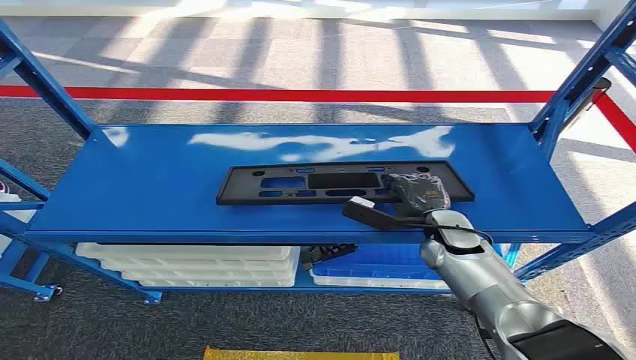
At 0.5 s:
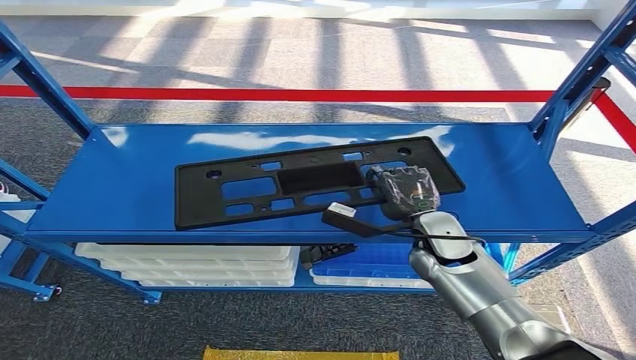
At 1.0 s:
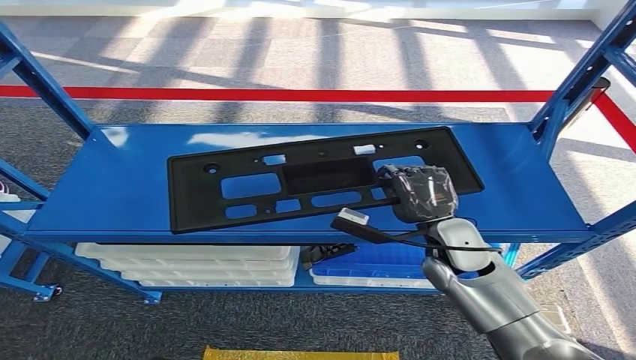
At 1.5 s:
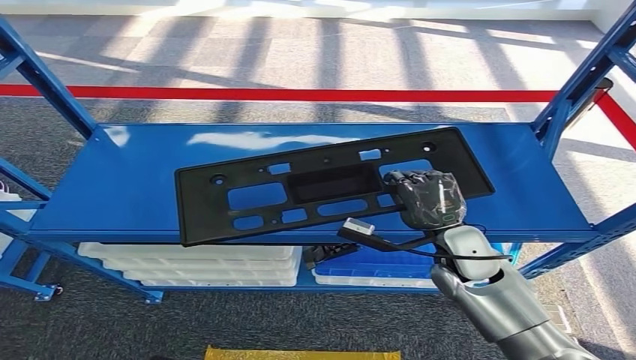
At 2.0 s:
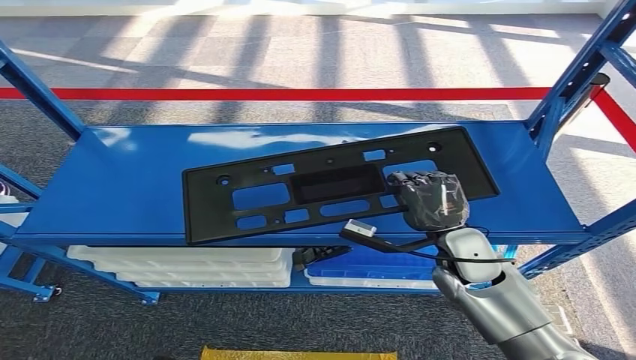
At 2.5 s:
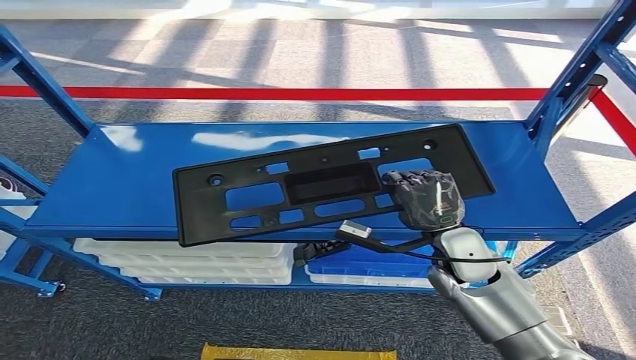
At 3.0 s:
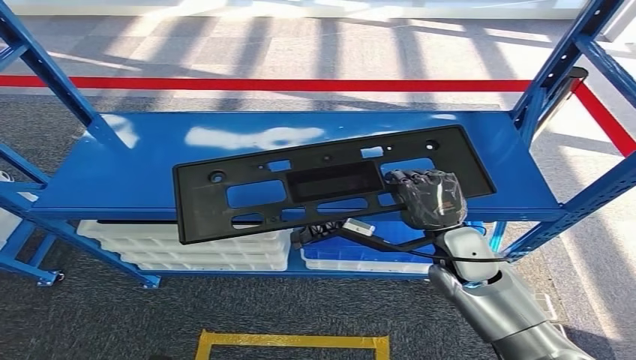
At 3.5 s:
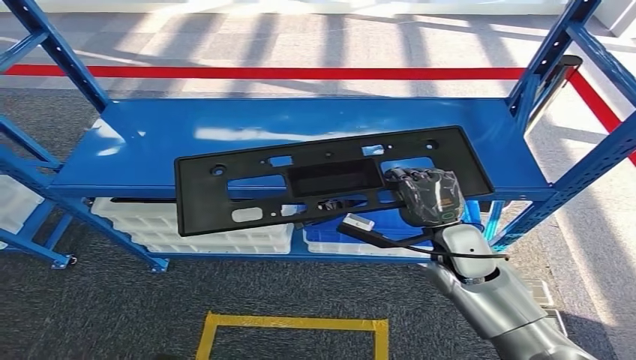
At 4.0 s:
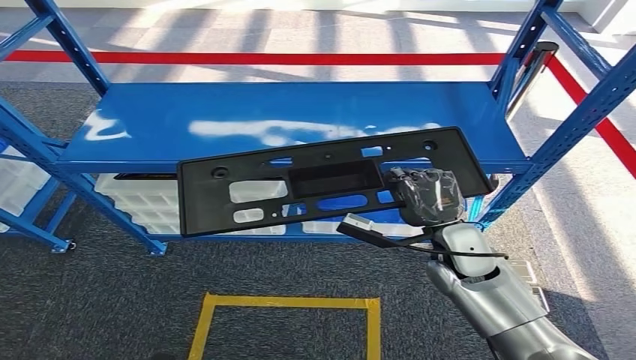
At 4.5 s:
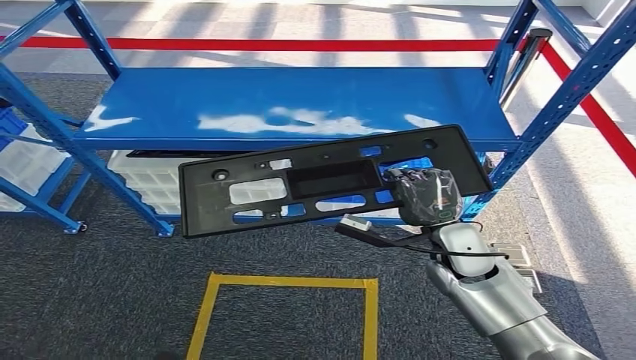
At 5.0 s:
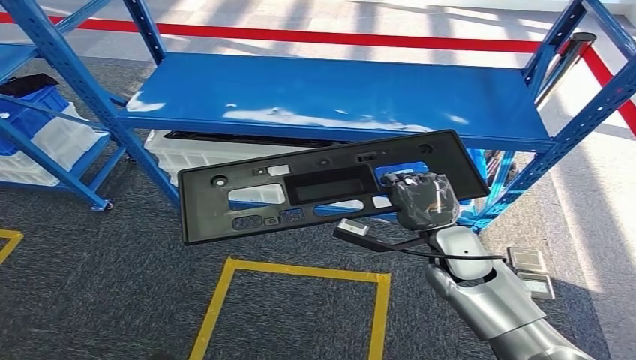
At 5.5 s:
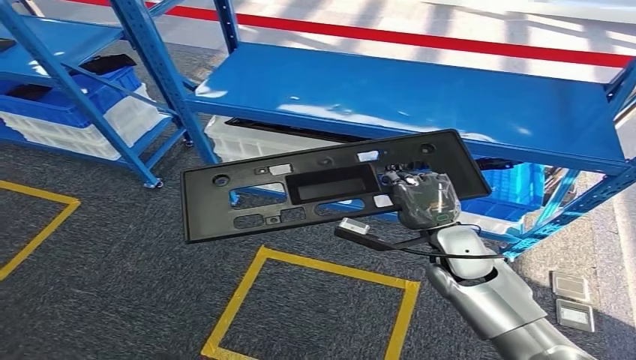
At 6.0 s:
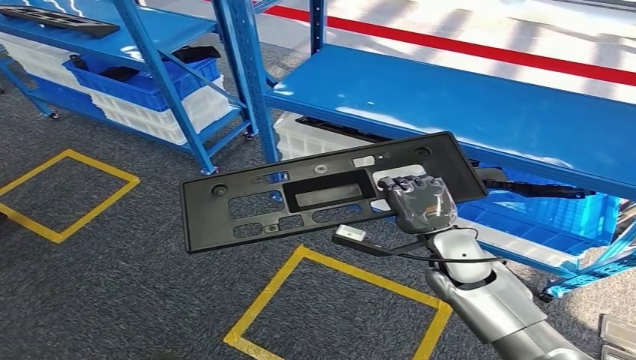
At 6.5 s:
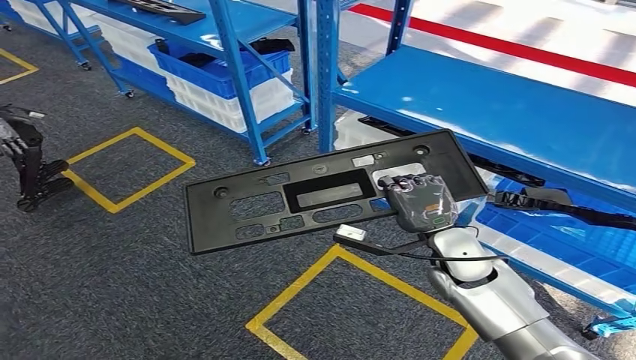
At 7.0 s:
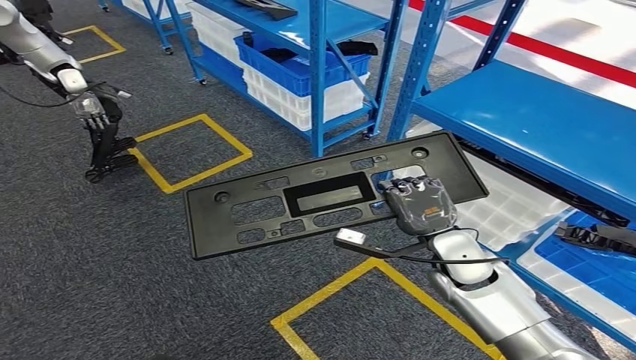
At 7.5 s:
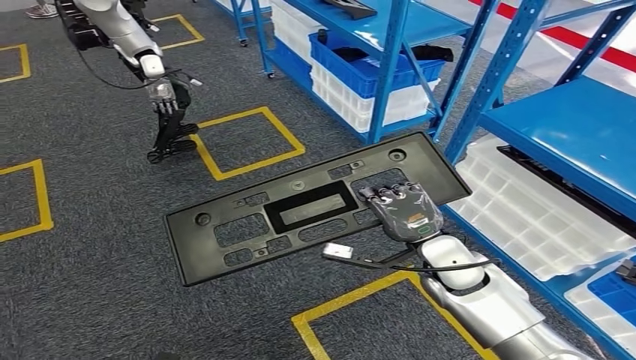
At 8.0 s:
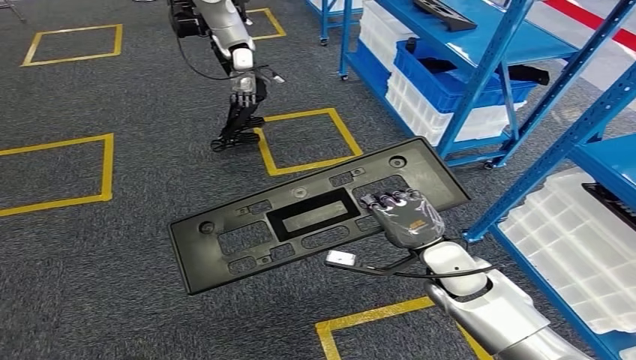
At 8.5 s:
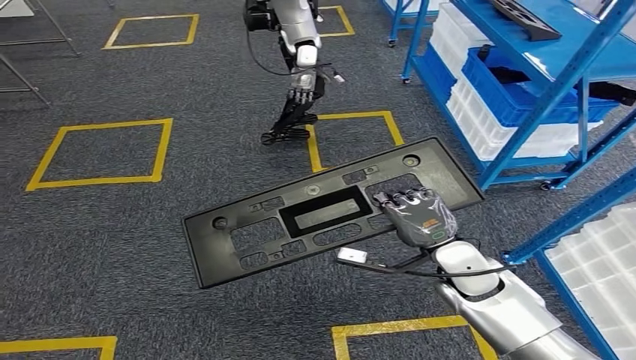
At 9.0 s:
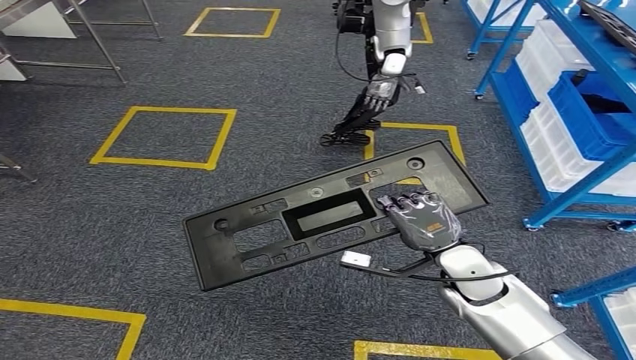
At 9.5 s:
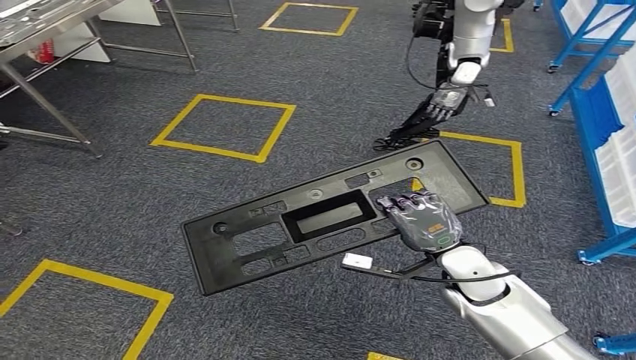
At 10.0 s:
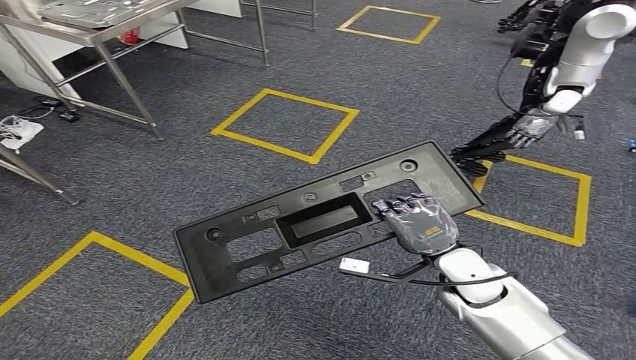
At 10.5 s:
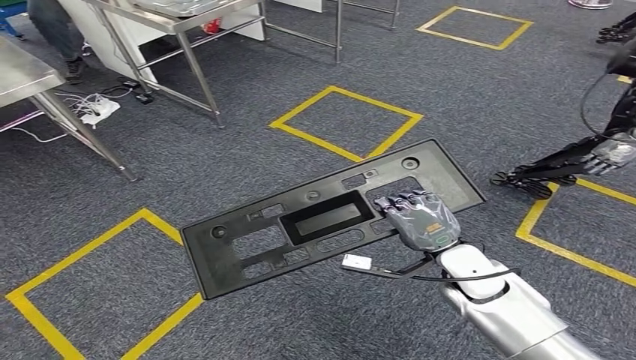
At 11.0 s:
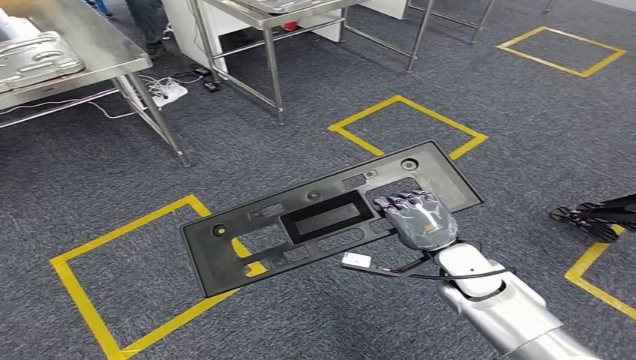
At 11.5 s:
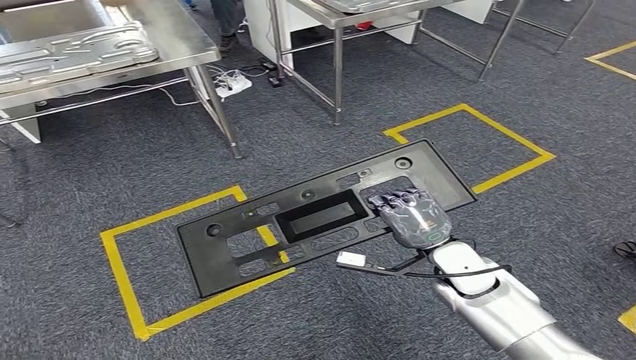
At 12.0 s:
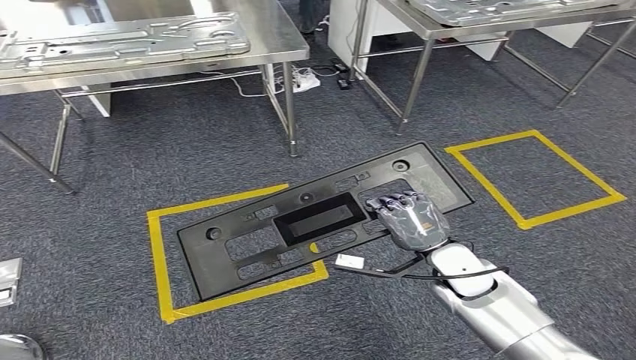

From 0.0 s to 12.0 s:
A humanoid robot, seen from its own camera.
Step, from 0.0 s to 3.0 s: Pick up the small component from the shelf.

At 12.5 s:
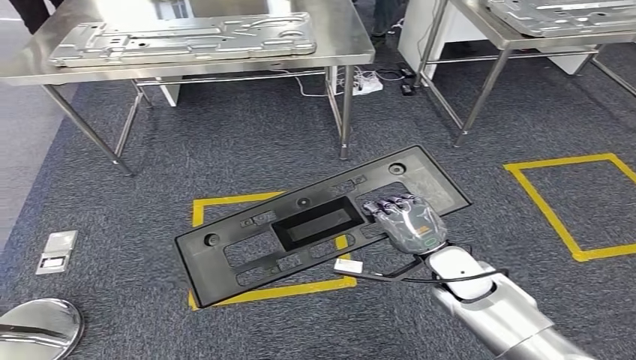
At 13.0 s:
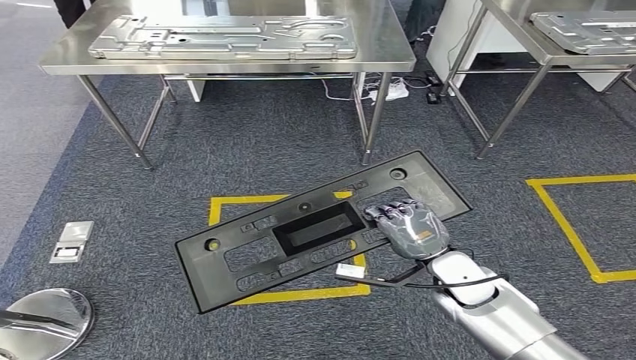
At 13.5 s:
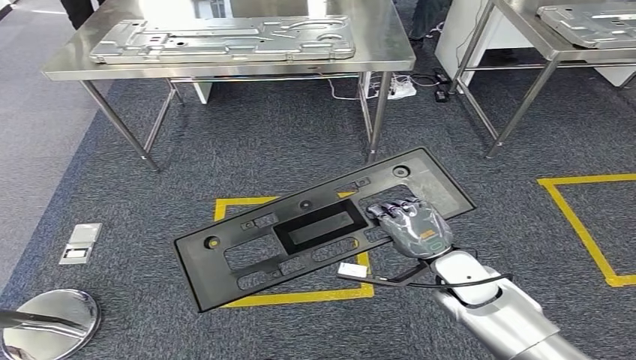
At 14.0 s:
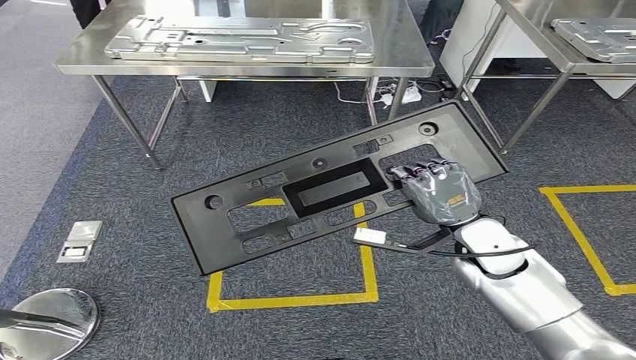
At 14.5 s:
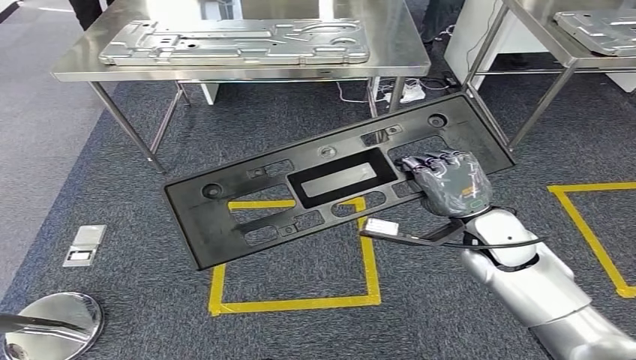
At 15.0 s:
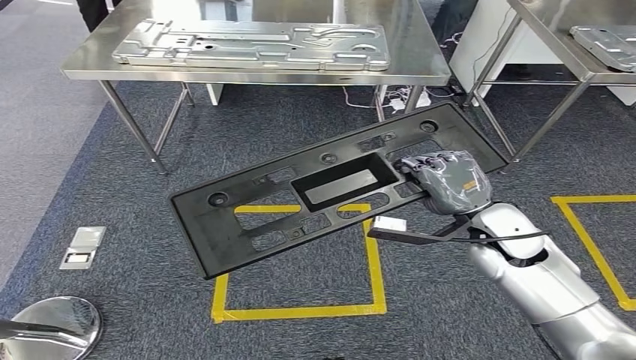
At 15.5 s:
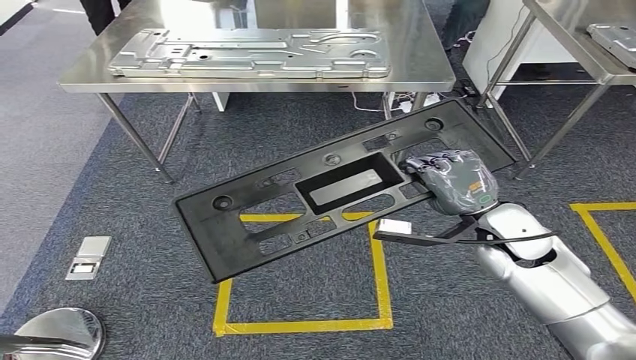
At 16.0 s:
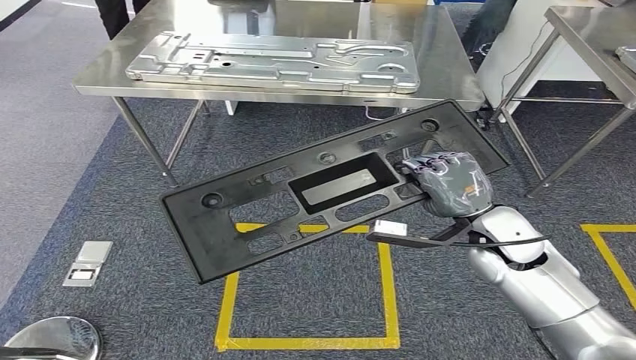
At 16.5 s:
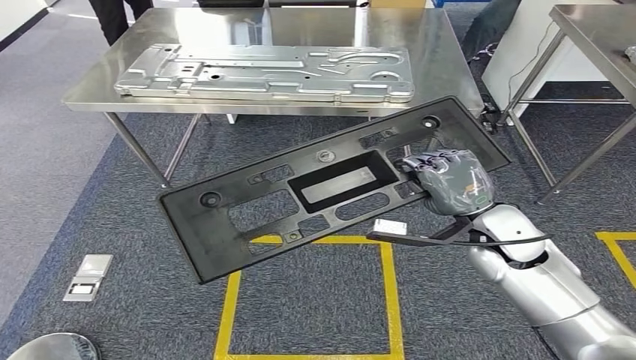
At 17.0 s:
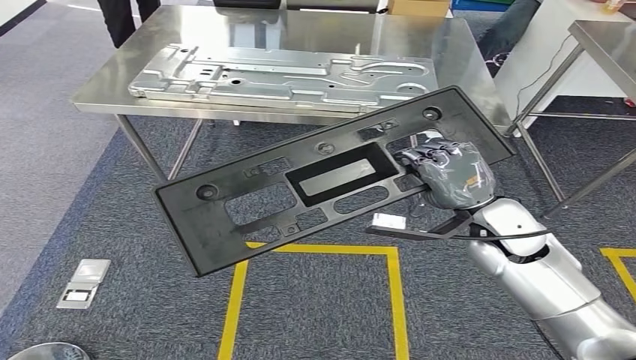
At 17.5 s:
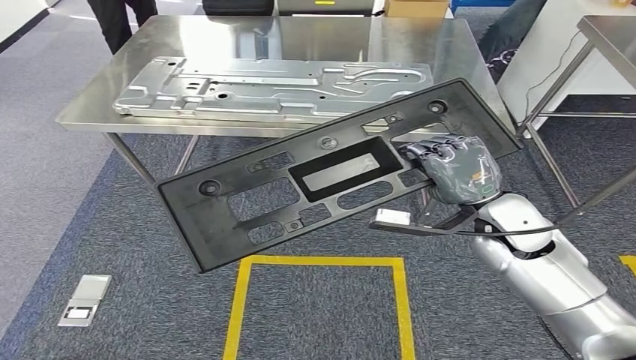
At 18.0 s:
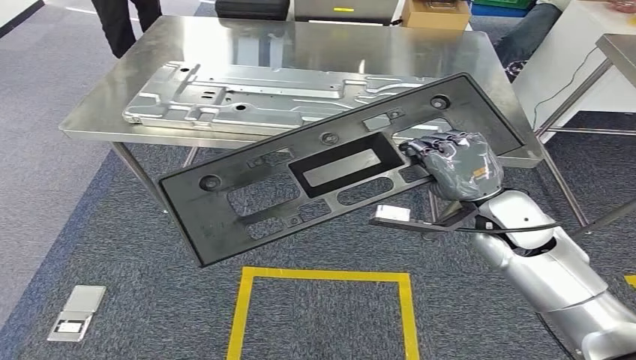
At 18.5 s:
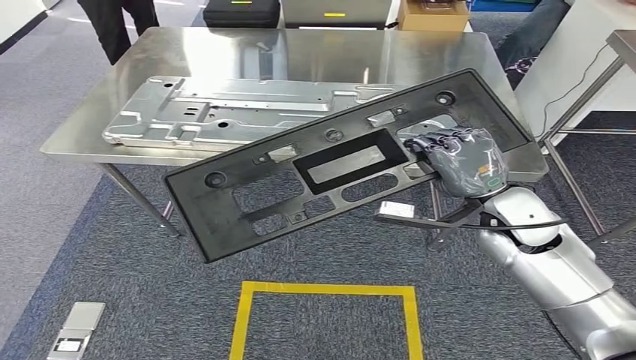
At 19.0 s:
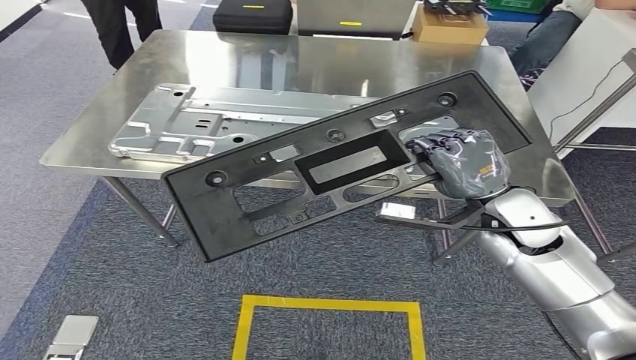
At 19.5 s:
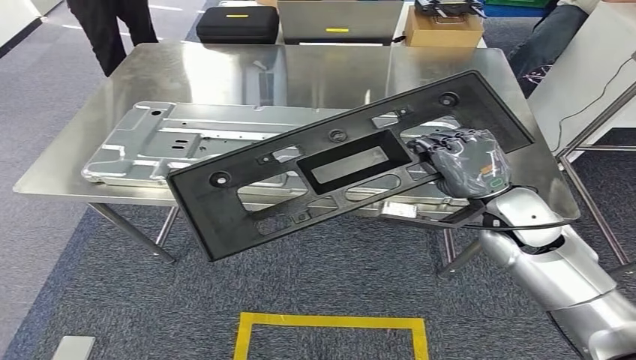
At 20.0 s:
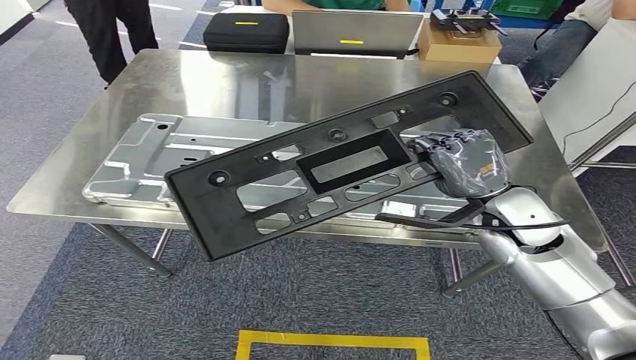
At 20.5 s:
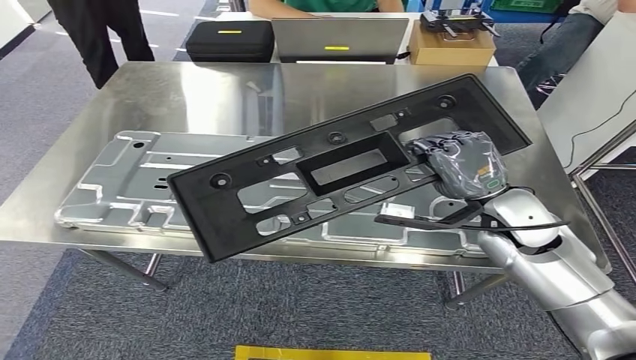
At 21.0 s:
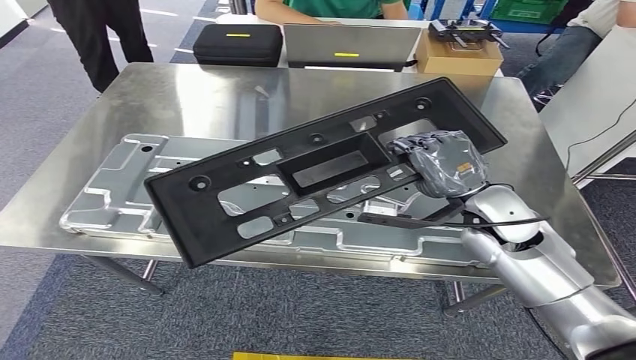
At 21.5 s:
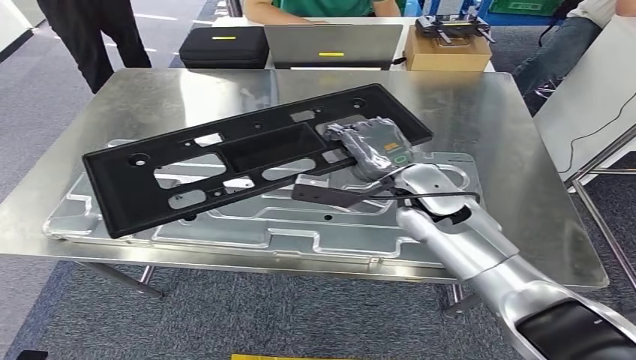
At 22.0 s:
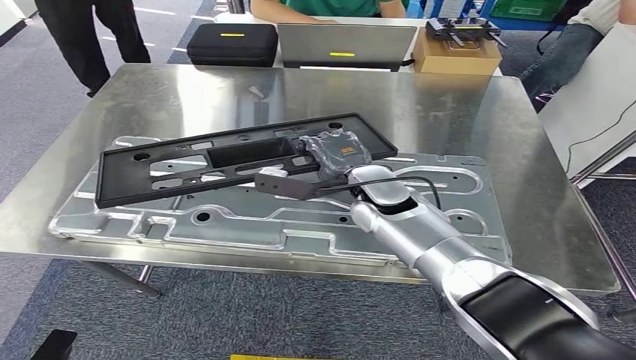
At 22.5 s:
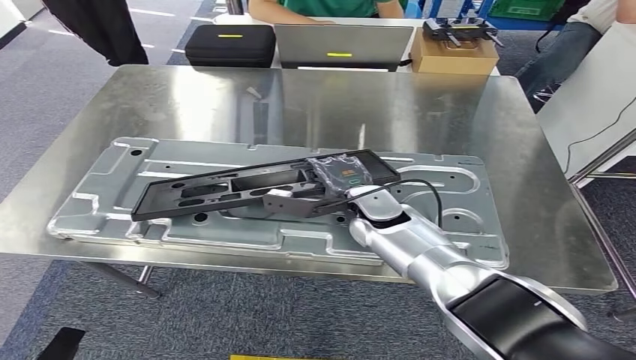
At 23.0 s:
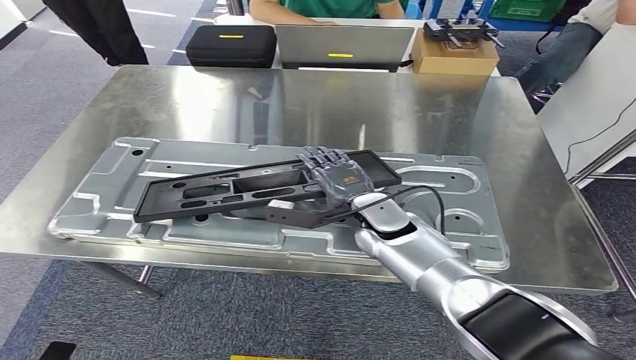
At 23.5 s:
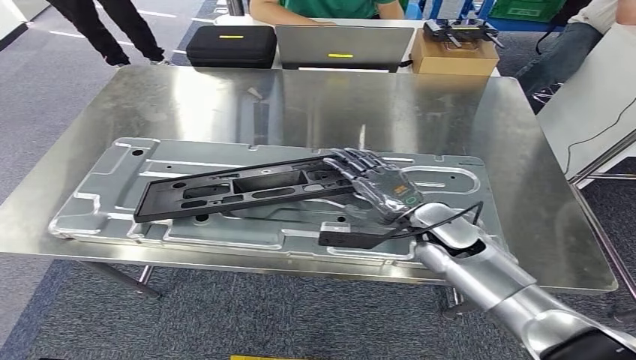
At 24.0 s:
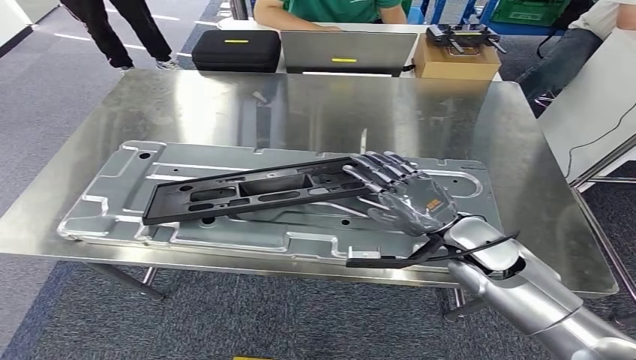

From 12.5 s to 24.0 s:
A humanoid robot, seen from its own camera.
Step, from 12.5 s to 19.0 s: Move the small component to the workbench.
